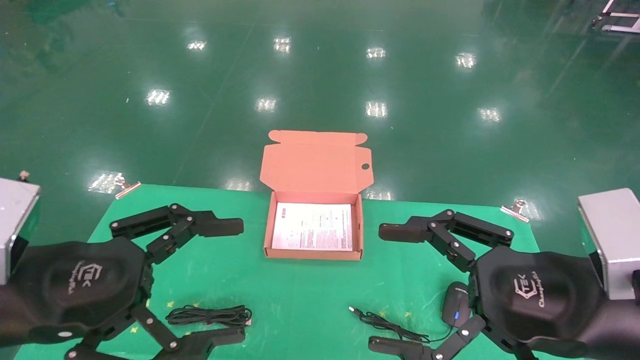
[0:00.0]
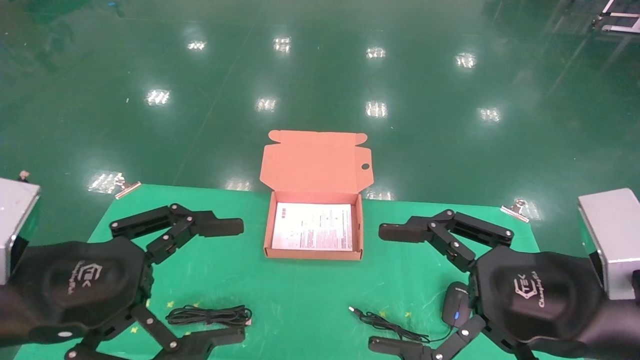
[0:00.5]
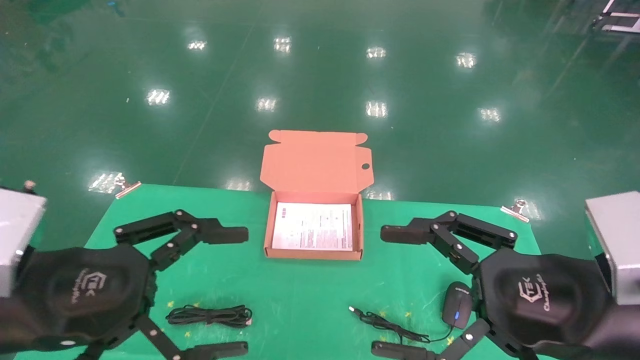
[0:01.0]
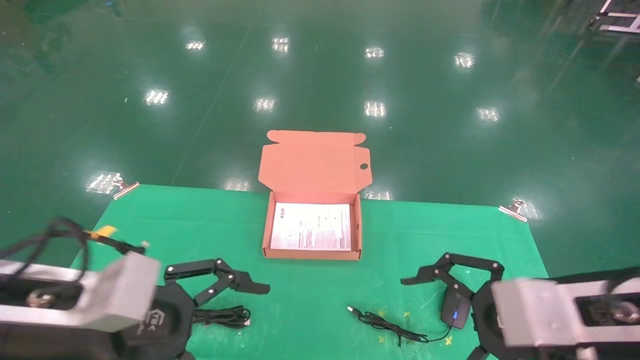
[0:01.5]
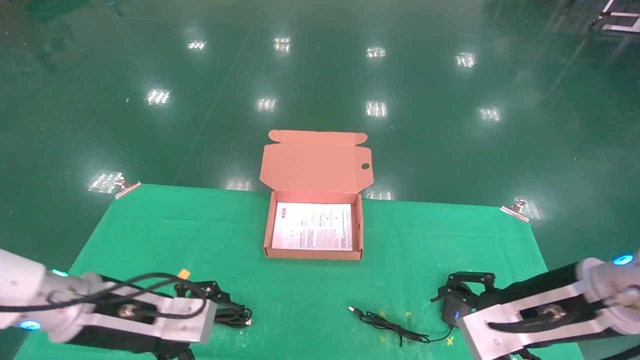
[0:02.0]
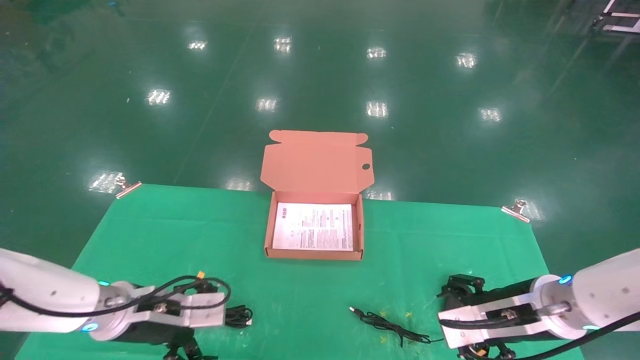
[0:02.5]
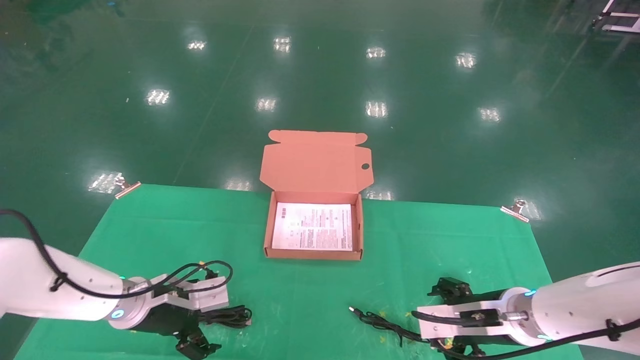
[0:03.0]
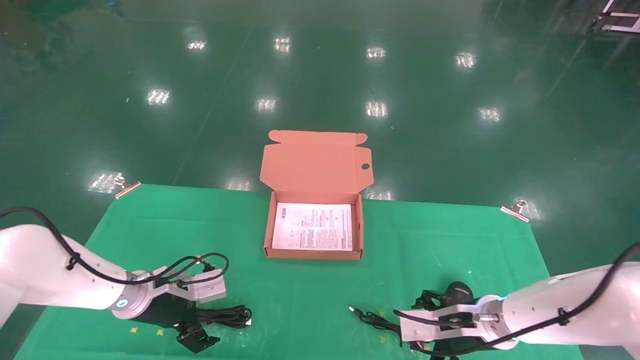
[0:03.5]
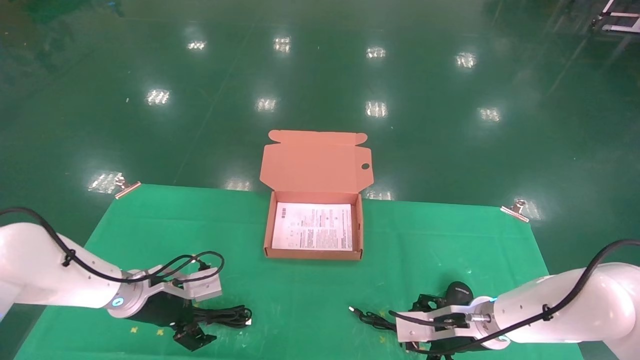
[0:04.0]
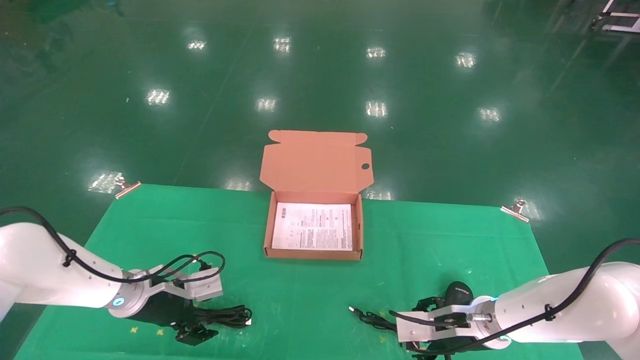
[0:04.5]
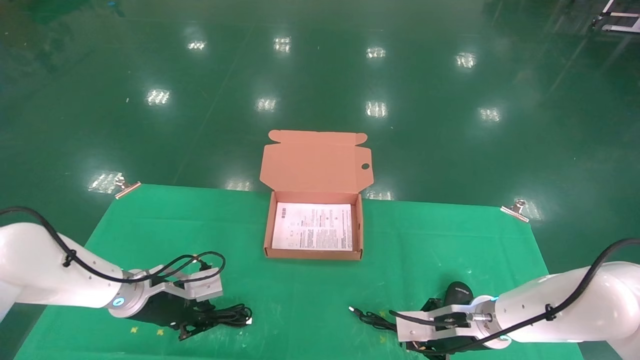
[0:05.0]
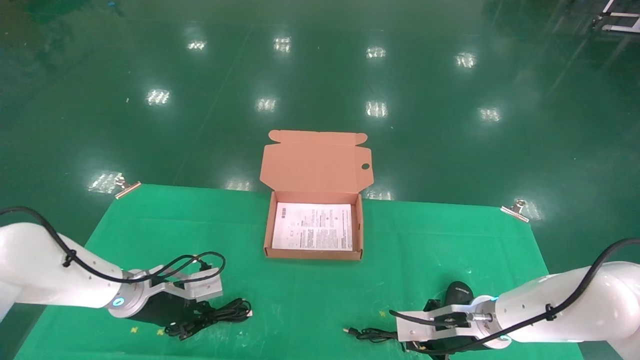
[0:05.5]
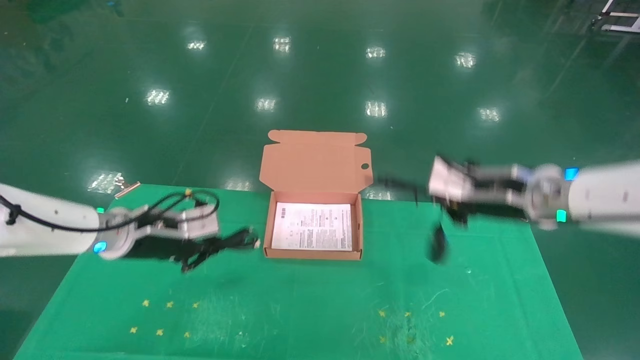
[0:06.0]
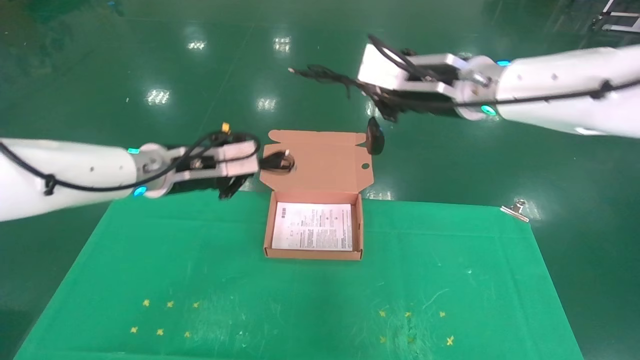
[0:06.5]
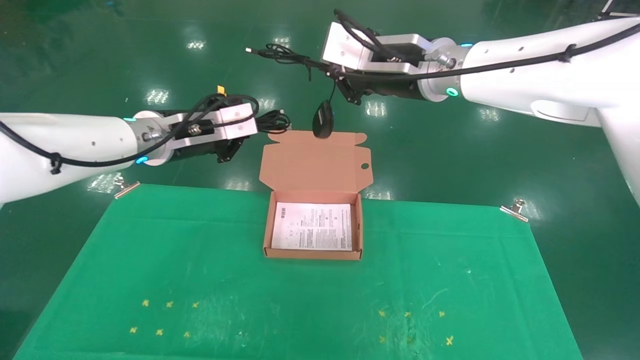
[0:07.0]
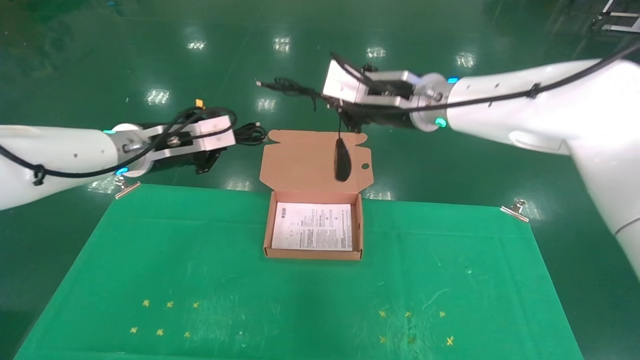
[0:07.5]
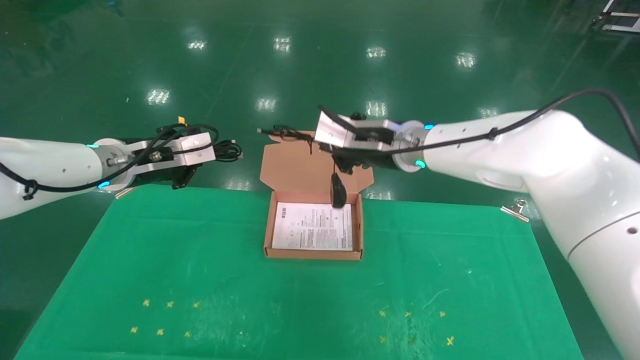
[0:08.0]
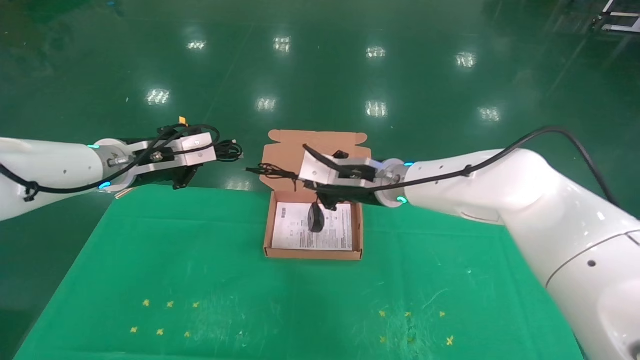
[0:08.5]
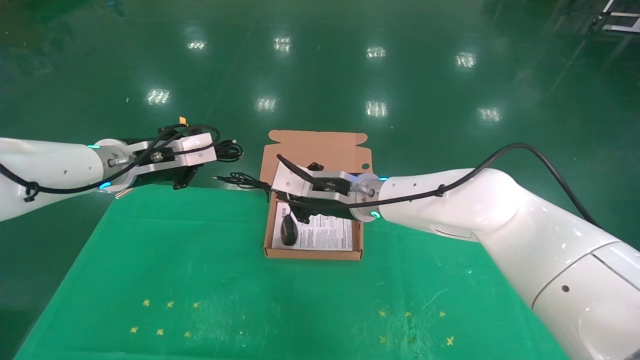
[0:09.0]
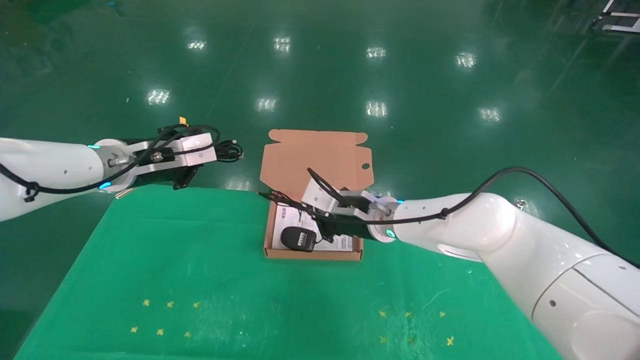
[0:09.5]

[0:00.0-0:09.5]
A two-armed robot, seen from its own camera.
Task of the whole recording: grasp data cable left put into box grasp mouse right put into box.
Step, 0:01.5 to 0:05.5: Grab and pick up both the mouse and power cord from the accessory packaging area at the same time.
0:00.0 to 0:02.0: The left gripper moves forward and downward, some 15 cm, while the right gripper is displaced forward by about 10 cm.
0:02.0 to 0:04.0: The left gripper moves forward and downward, about 15 cm. Meanwhile the right gripper goes some 20 cm downward and forward.
0:04.0 to 0:05.5: The right gripper closes. The left gripper closes its fingers.
0:05.5 to 0:07.5: The right gripper shifts roughly 30 cm upward and to the left, while the left gripper travels upward by roughly 20 cm.
0:07.5 to 0:09.5: The right gripper goes roughly 15 cm downward.

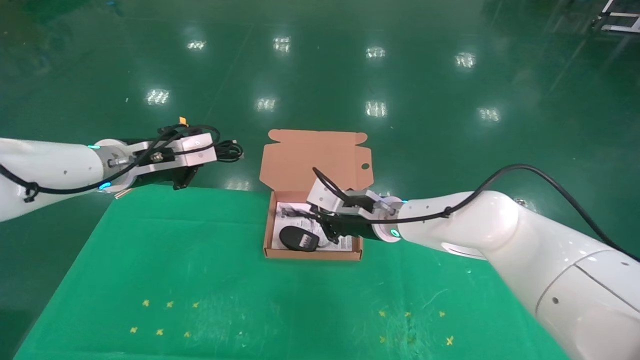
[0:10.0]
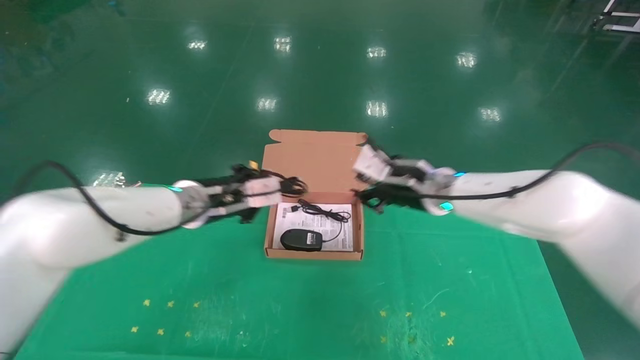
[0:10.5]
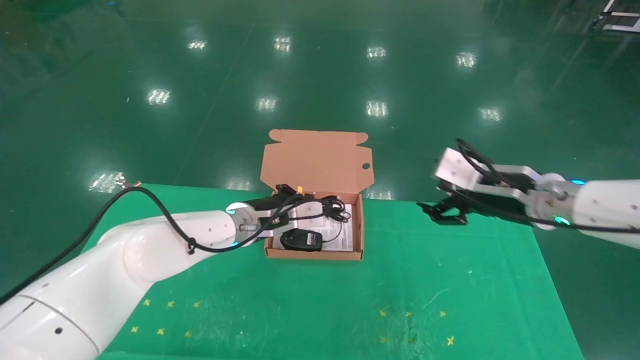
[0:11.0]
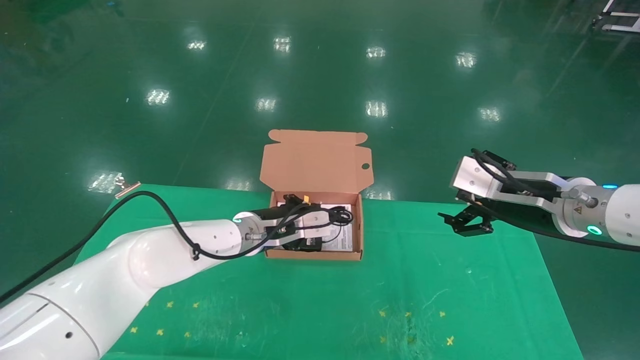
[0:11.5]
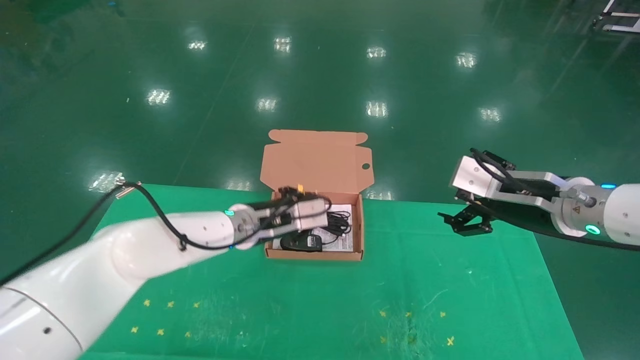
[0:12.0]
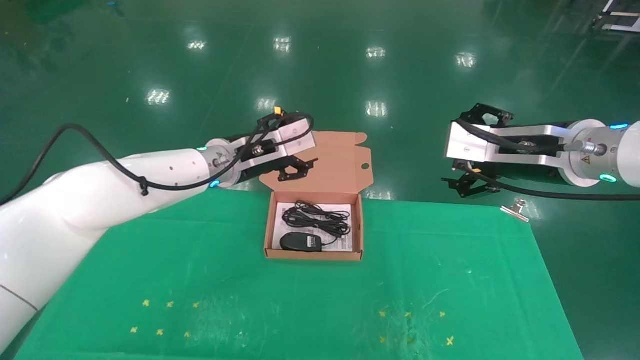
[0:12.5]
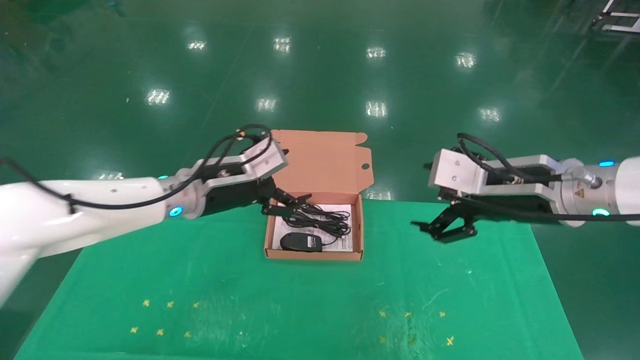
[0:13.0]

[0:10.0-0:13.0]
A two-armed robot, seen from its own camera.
Task of the whole recording: grasp data cable left put into box grasp mouse right put into box.
Step, 0:10.0 to 0:12.0: Place the mouse and power cord into the box.
0:10.0 to 0:11.5: The right gripper travels to the right and backward by about 25 cm, and opens its fingers; the left gripper heads to the right and downward, covering roughly 20 cm.
0:11.5 to 0:13.0: The right gripper shifts by some 5 cm; the left gripper shifts roughly 15 cm upward, to the left and backward, and opens its fingers.
